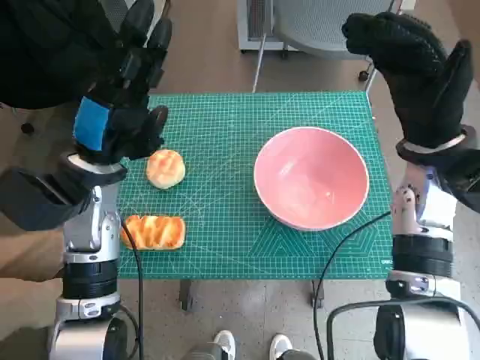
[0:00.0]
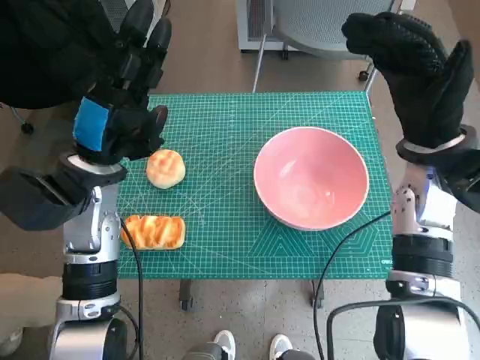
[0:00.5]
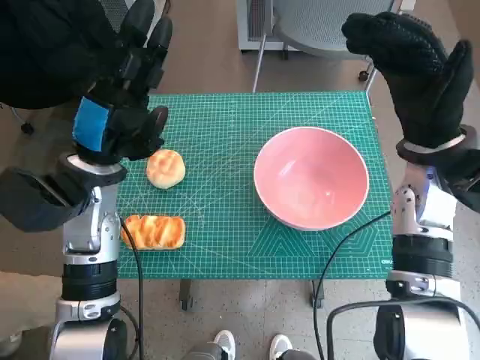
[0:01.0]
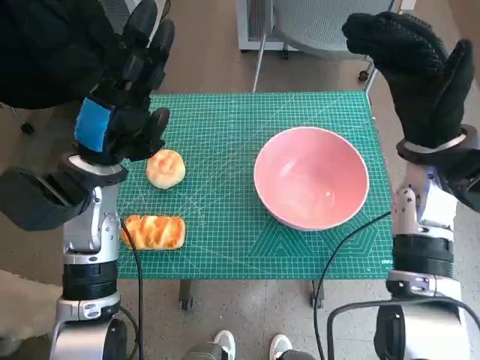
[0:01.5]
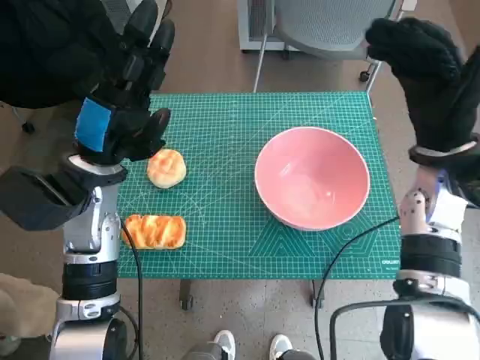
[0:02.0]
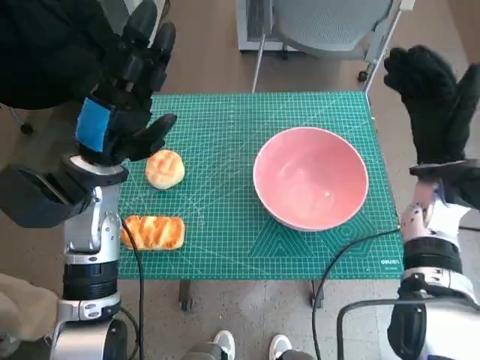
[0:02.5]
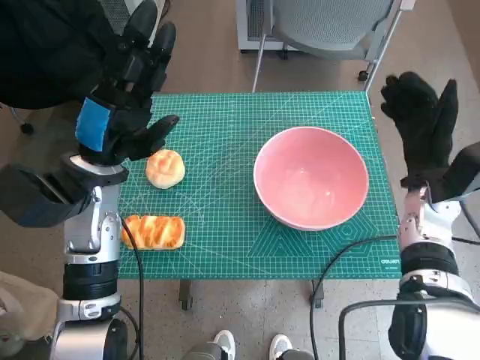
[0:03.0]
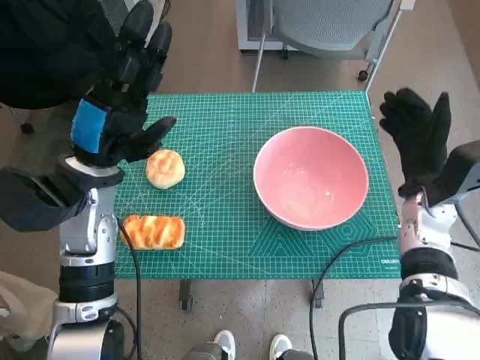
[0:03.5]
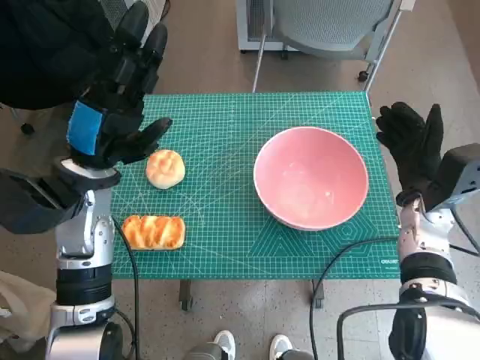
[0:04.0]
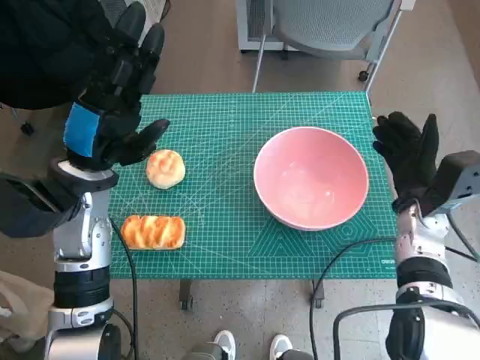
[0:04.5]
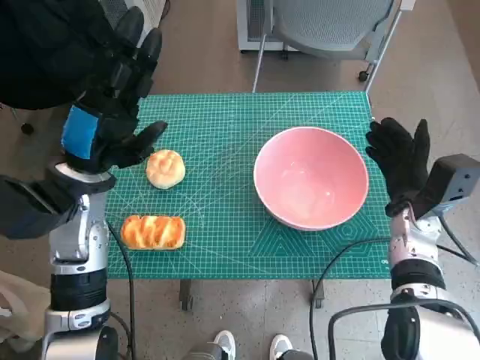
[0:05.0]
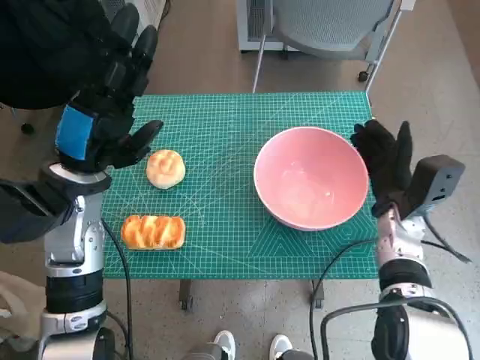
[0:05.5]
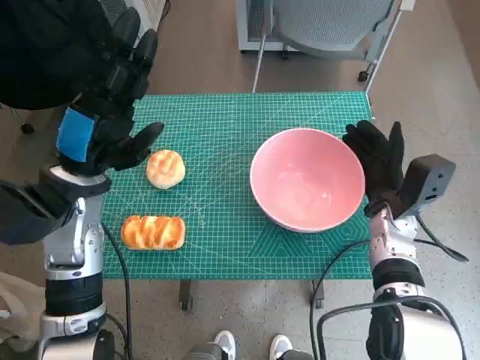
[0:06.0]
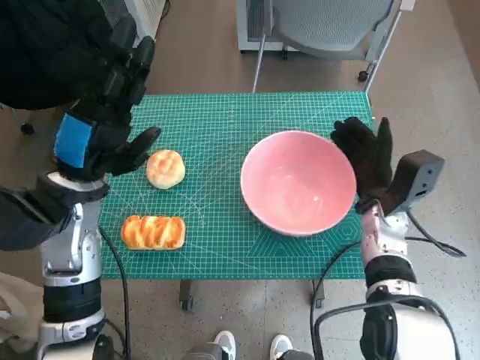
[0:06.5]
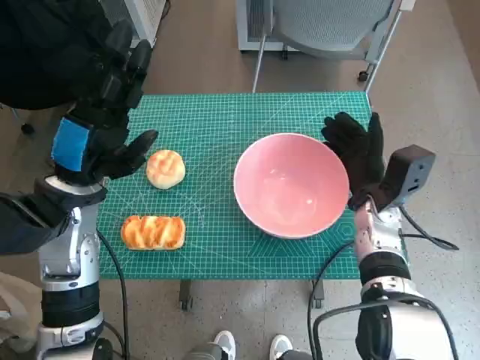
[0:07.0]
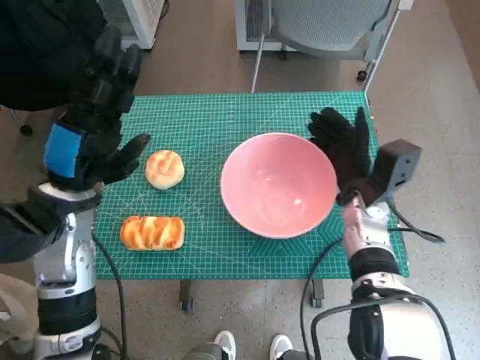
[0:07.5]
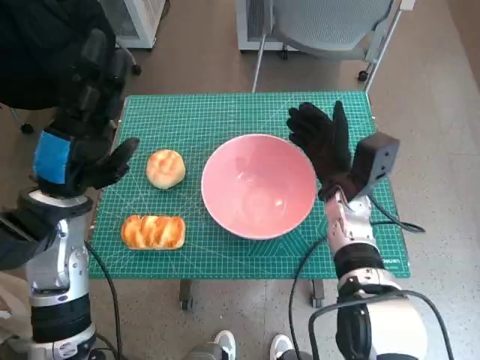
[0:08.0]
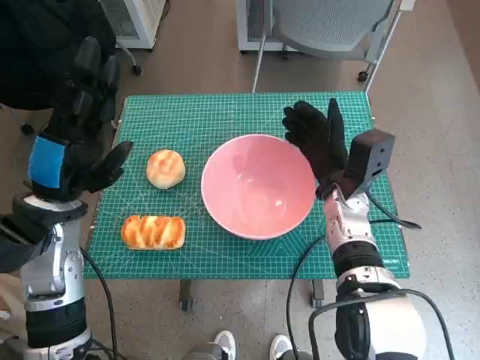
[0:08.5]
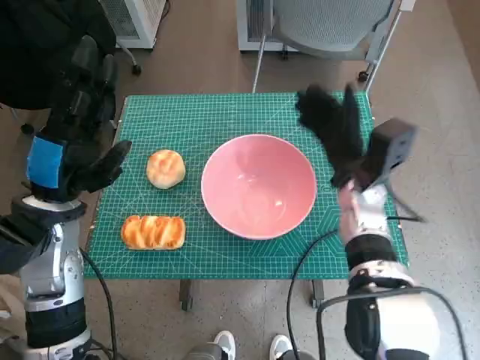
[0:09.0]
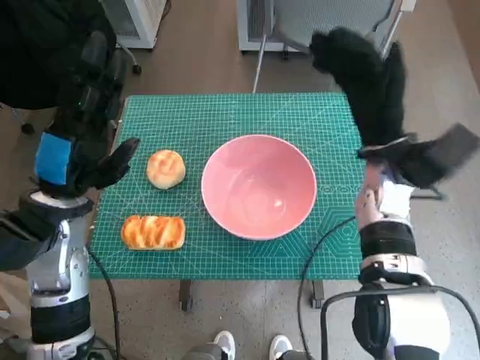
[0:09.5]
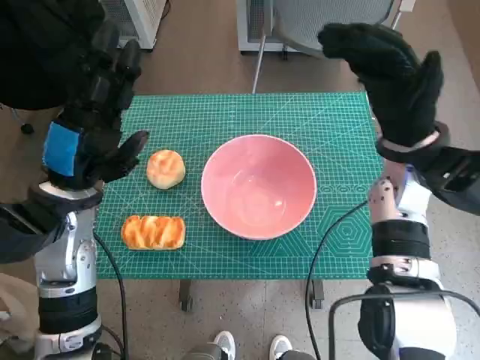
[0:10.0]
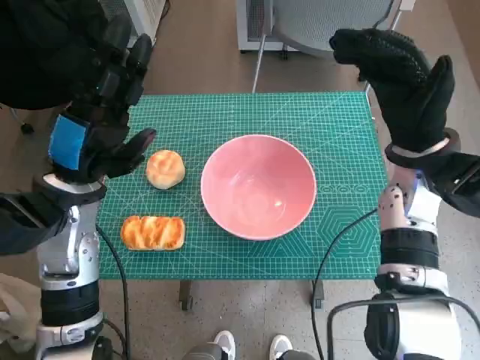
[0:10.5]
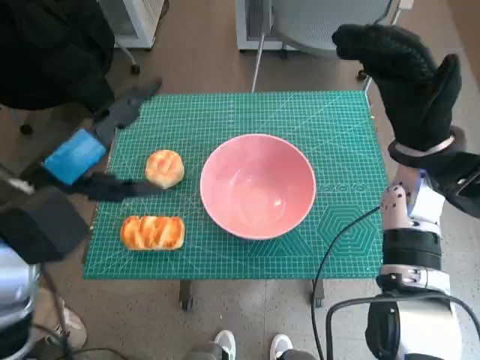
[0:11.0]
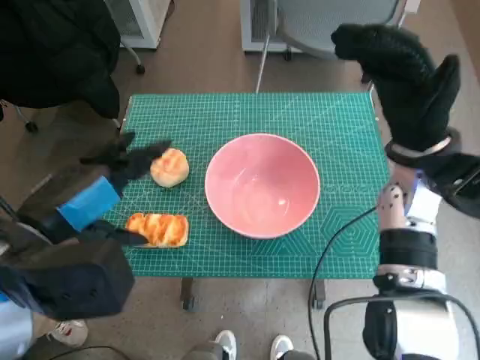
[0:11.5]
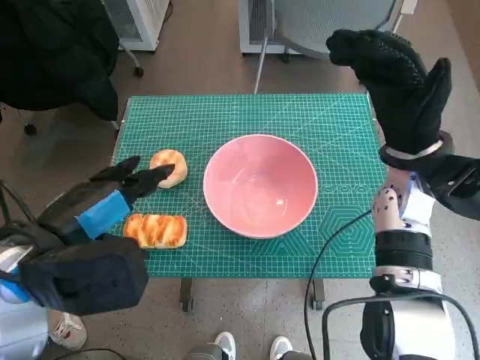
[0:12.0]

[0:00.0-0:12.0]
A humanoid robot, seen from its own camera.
Step, 0:00.0 to 0:08.5: Move the pink bowl to the center of table with right hand.
0:02.0 to 0:04.0: The right hand shifts approximately 10 cm downward.
0:06.0 to 0:08.0: The right hand moves to the left, some 5 cm.
0:08.0 to 0:10.0: The right hand heads upward and to the right, covering approximately 10 cm.
0:10.0 to 0:12.0: The left hand goes some 10 cm backward.

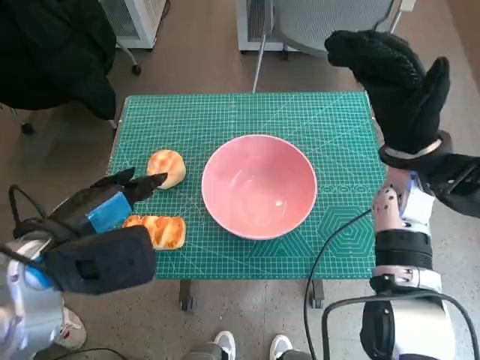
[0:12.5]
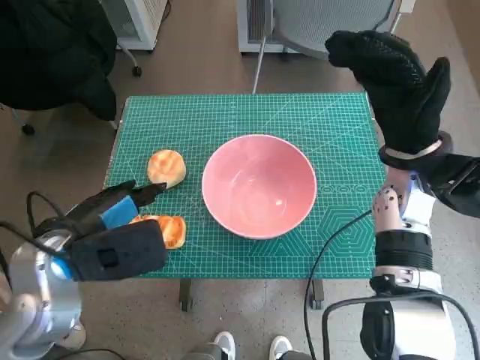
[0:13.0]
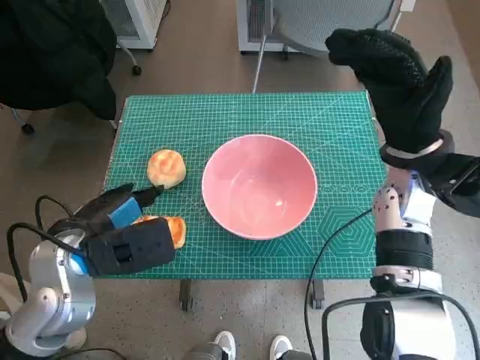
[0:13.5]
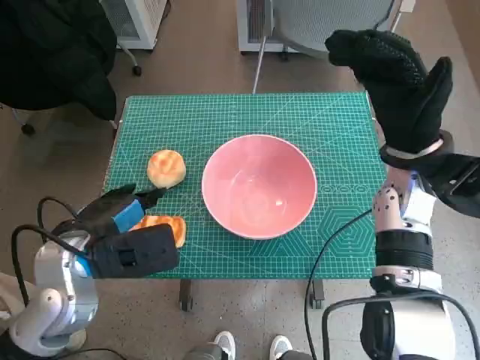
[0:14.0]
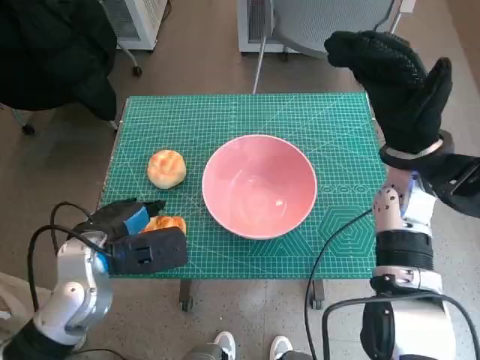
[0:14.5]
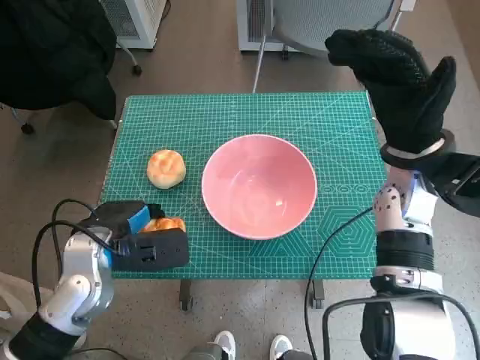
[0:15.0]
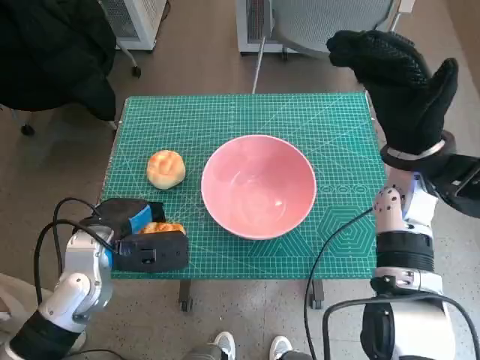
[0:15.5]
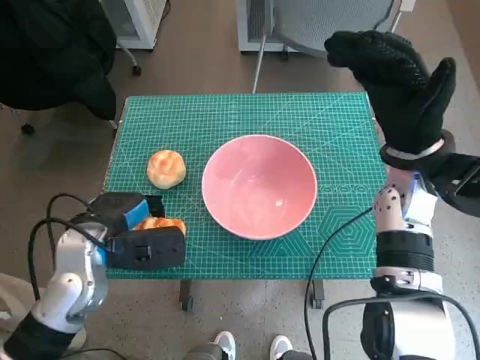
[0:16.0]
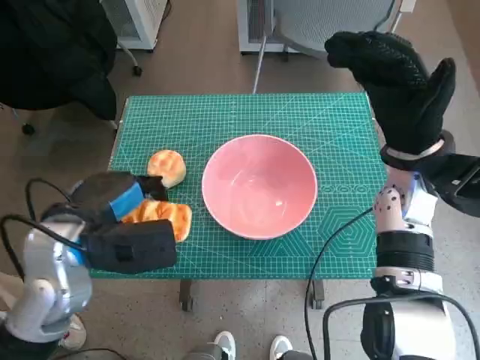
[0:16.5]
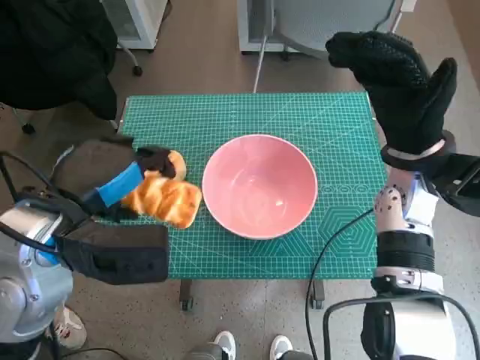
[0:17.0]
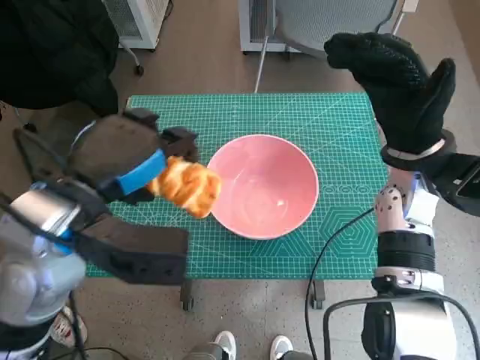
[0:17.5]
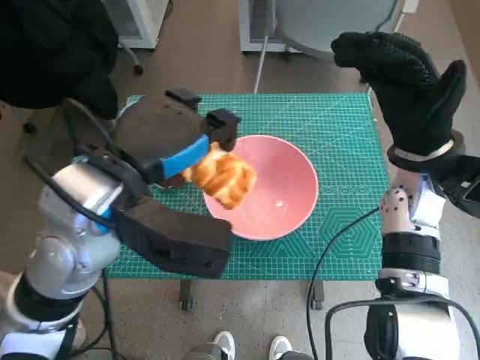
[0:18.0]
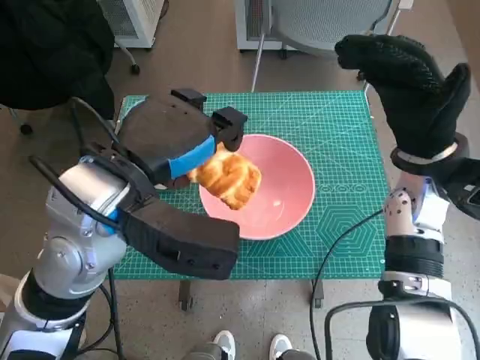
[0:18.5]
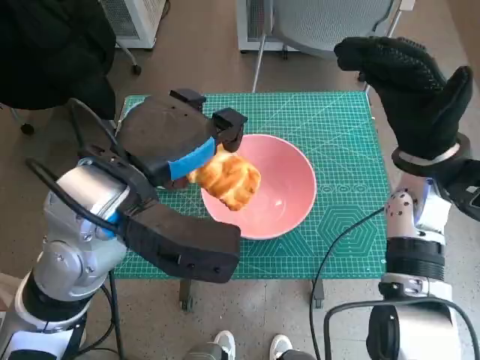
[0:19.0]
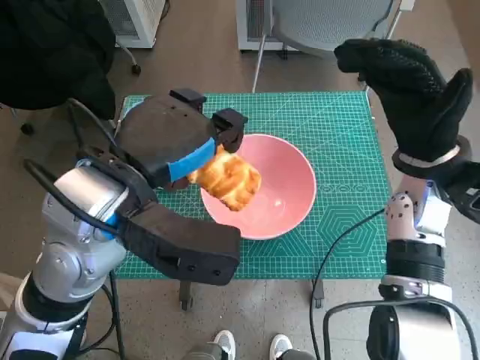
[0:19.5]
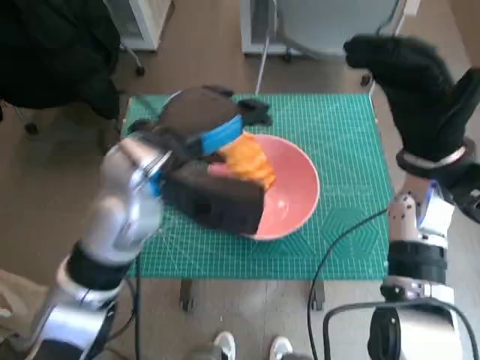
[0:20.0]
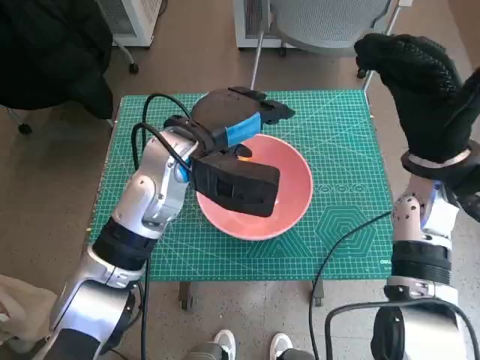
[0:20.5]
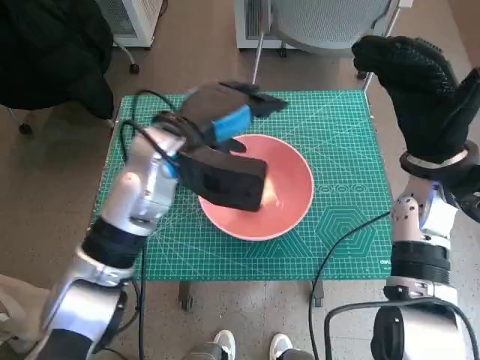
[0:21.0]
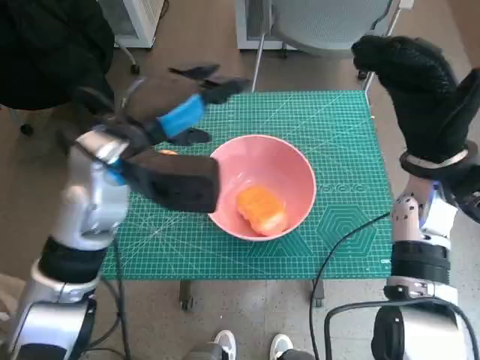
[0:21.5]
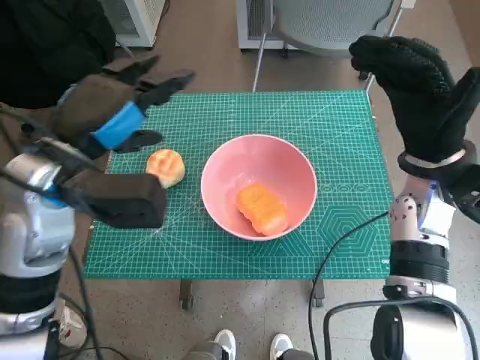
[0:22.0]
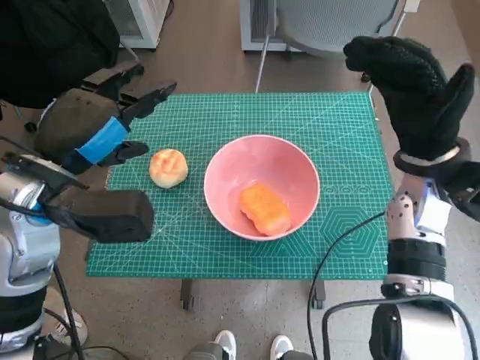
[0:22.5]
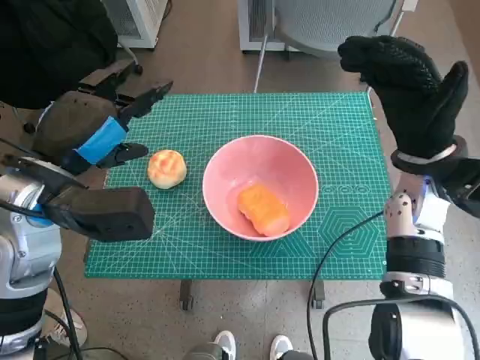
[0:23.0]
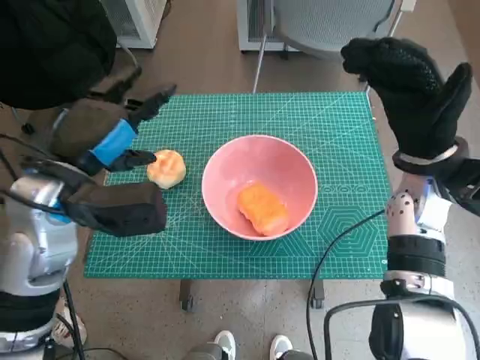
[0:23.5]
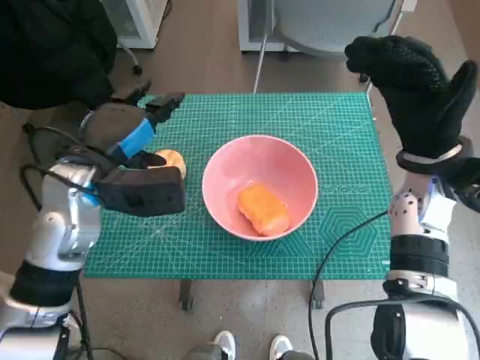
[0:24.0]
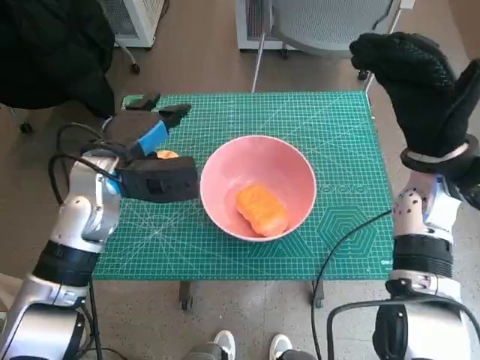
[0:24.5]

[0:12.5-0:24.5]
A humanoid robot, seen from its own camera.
Step, 0:12.5 to 0:15.0: Grasp the long bread with left hand.
Step, 0:15.5 to 0:20.5: Place the long bread in pink bowl with left hand.
0:12.5 to 0:14.5: The left hand moves downward, approximately 10 cm.
0:14.5 to 0:16.5: There are only small adjustments of the hands.
0:16.5 to 0:18.5: The left hand moves upward and to the right, approximately 10 cm.
0:18.5 to 0:20.5: The left hand goes some 10 cm forward and downward.
0:20.5 to 0:22.5: The left hand shifts some 15 cm to the left and backward.
0:22.5 to 0:24.5: The left hand goes about 10 cm forward and downward.

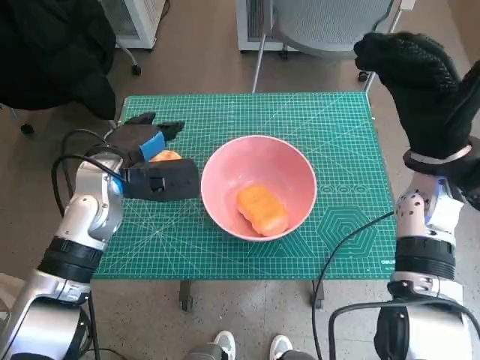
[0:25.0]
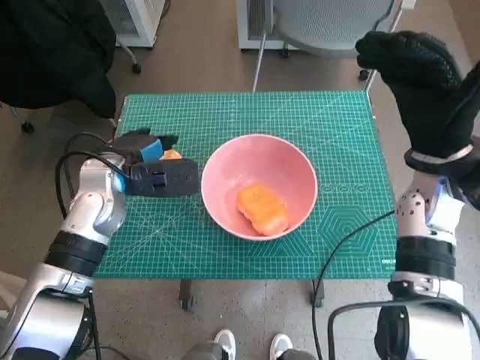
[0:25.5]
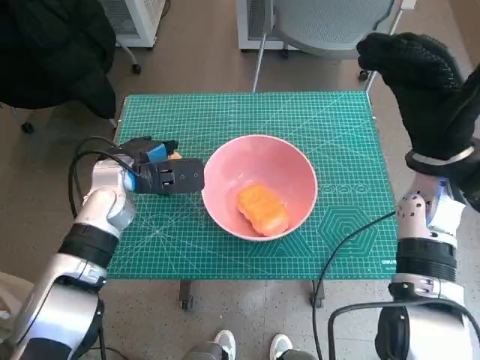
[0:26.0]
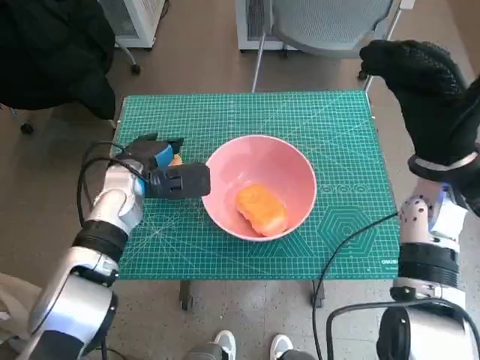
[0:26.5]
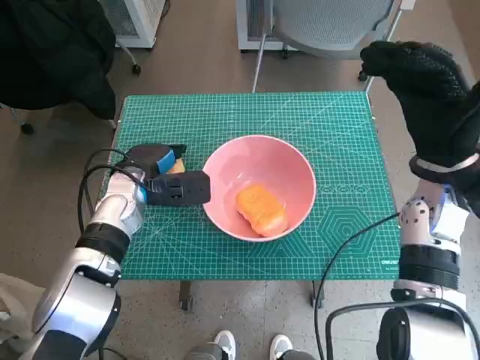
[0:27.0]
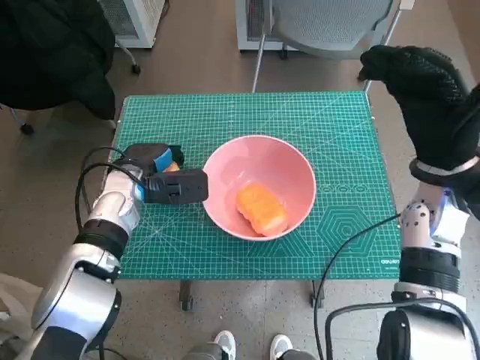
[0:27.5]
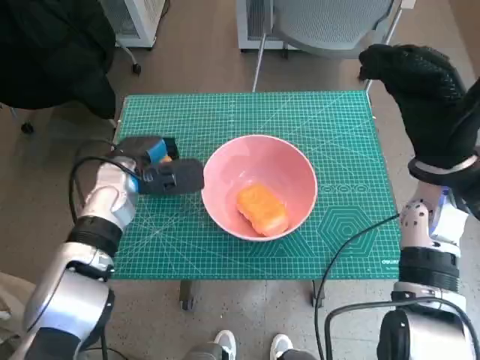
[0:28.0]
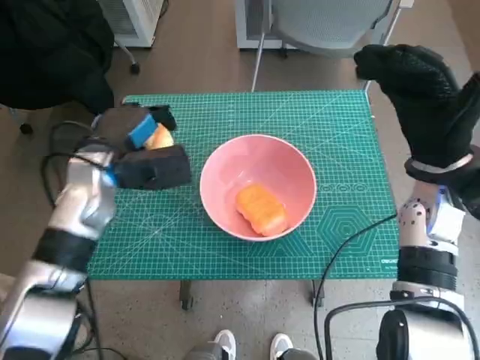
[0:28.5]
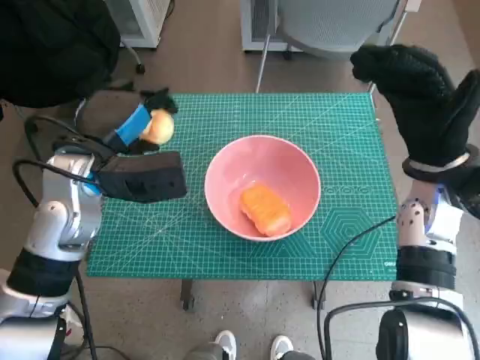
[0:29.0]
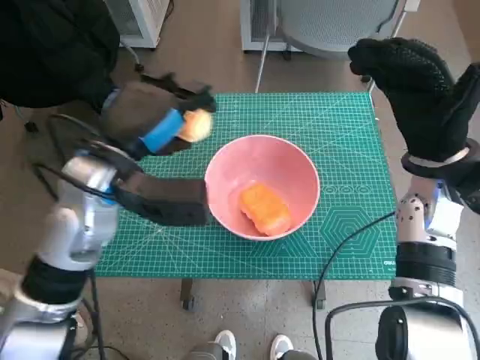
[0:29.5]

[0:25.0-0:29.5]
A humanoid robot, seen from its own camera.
Step, 0:25.0 to 0:27.5: Grasp the round bread with left hand.
0:25.0 to 0:27.0: The left hand is displaced downward by some 5 cm.
0:27.0 to 0:29.5: The left hand shifts approximately 15 cm upward and backward.
